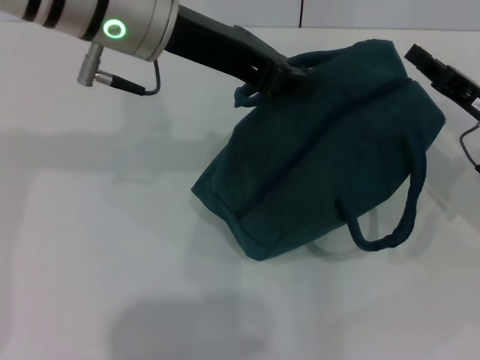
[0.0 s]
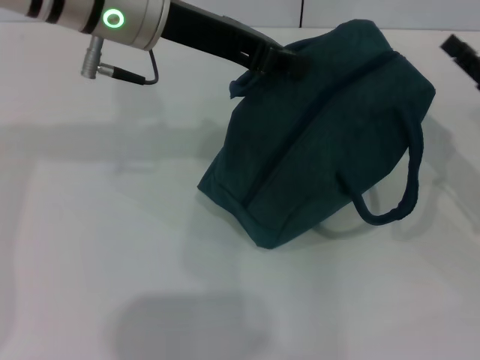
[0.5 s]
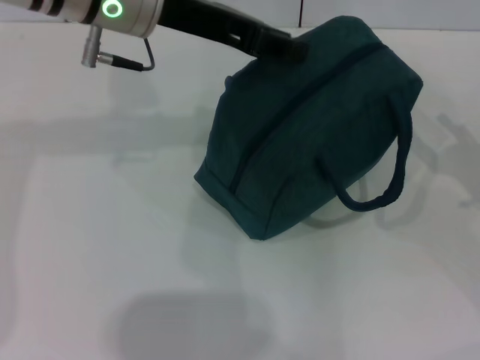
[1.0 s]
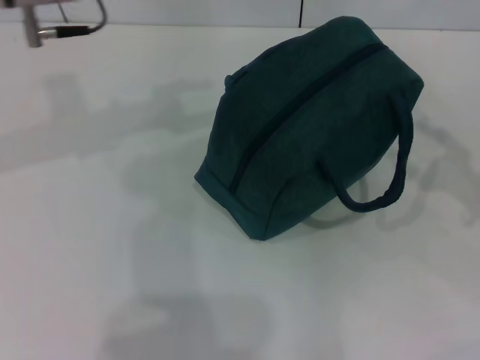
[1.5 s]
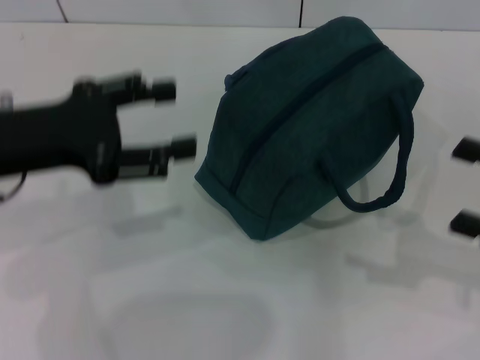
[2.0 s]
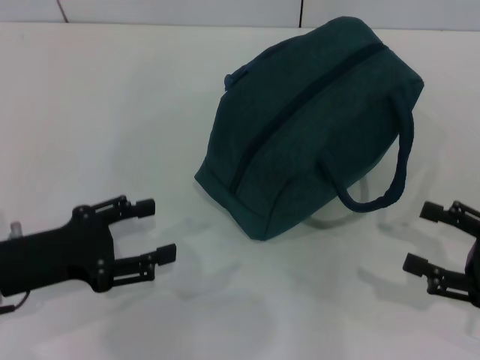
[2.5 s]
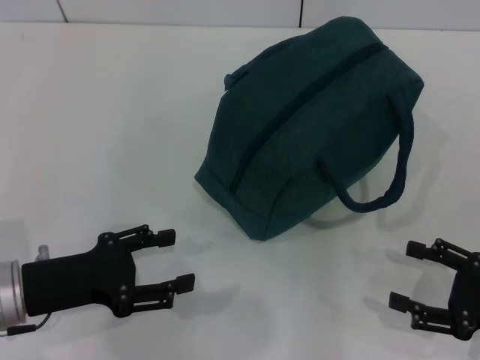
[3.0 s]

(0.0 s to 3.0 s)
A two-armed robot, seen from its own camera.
Step, 0.5 s - 1.0 s: Hold the lunch bag with your left hand.
0.0 s - 1.5 s: The left gripper goes roughly 5 cm to the left, and opens up, while the right gripper moves to the right and backward, about 10 cm, and opens up.
1.5 s - 3.0 s: The right gripper shifts some 10 cm downward and backward. The left gripper is displaced downward and backward by about 25 cm.
